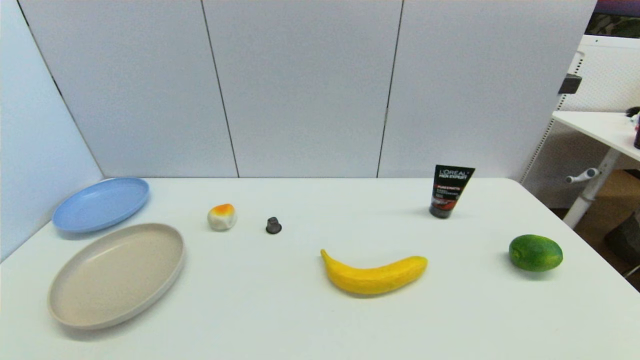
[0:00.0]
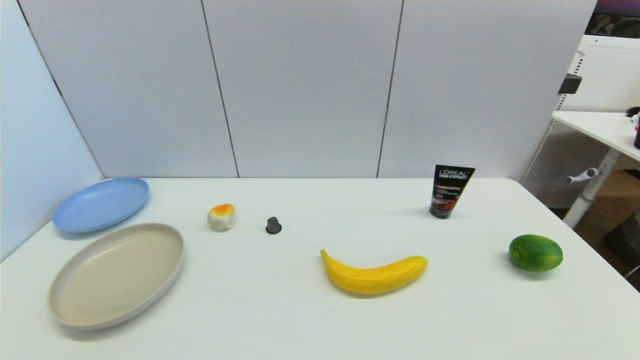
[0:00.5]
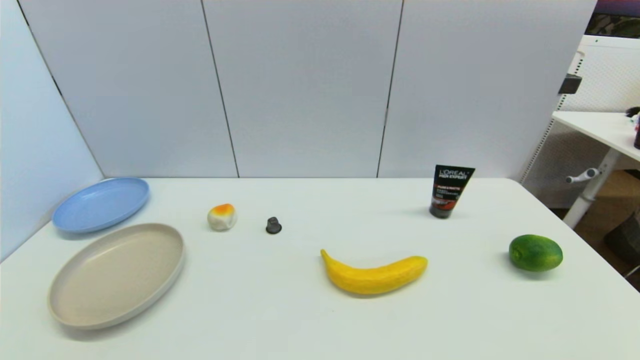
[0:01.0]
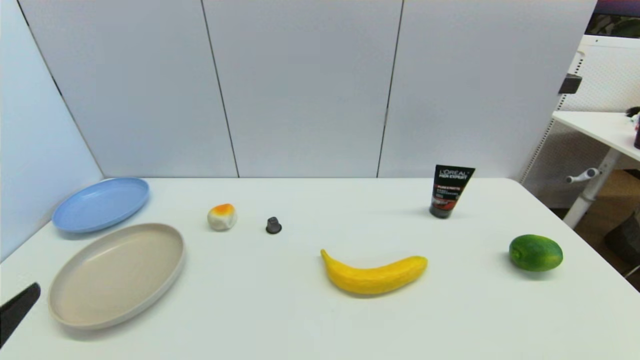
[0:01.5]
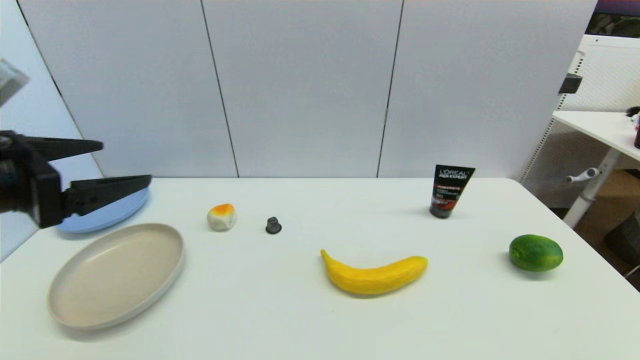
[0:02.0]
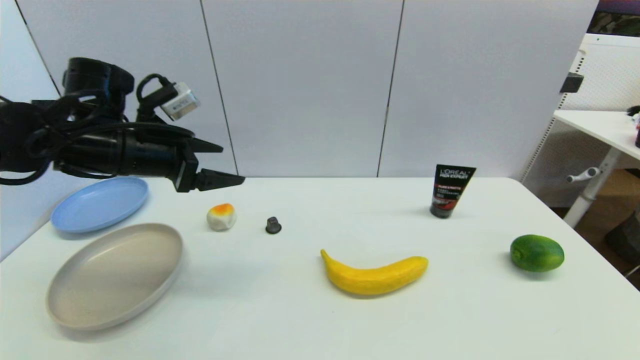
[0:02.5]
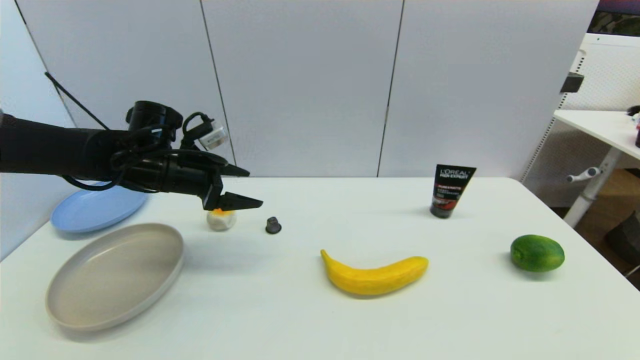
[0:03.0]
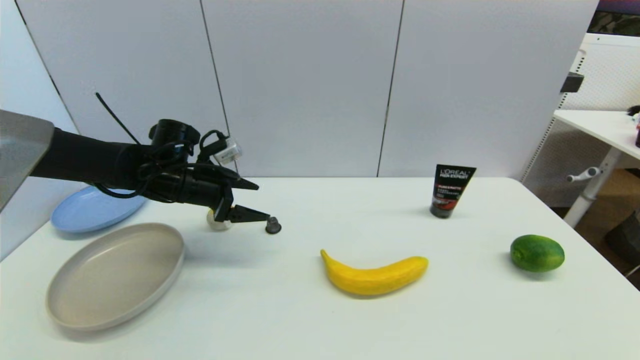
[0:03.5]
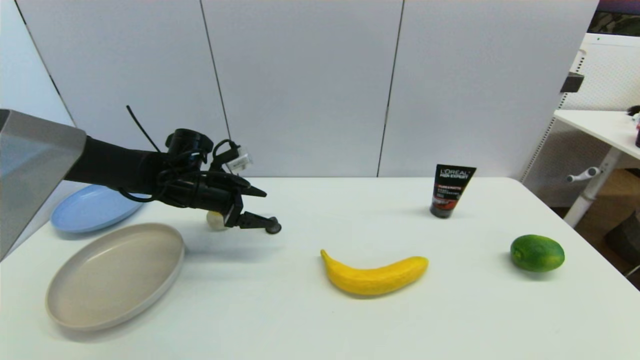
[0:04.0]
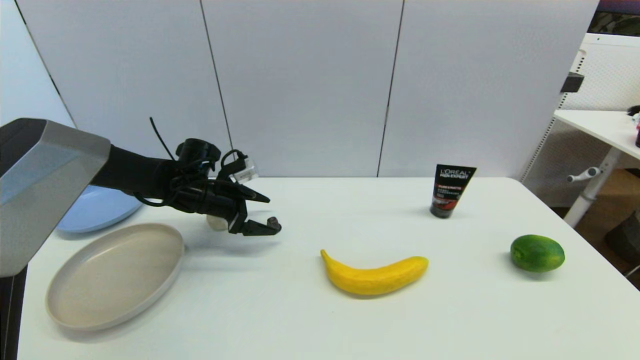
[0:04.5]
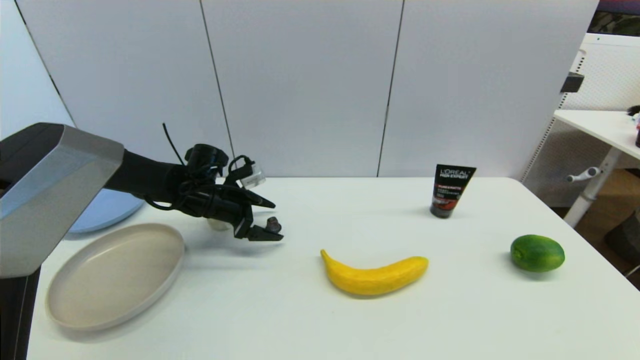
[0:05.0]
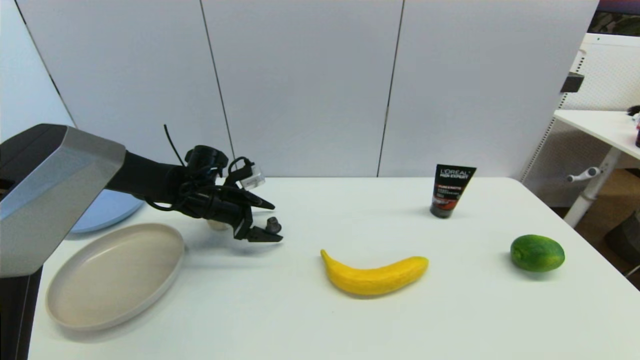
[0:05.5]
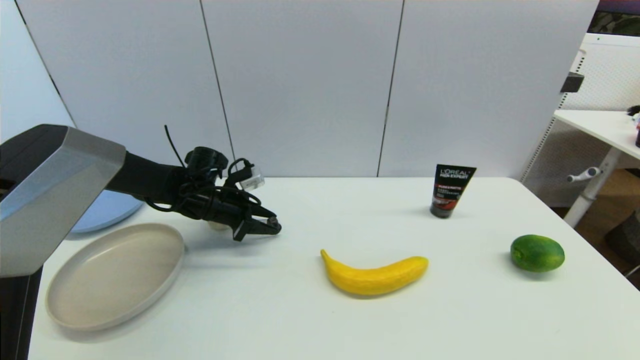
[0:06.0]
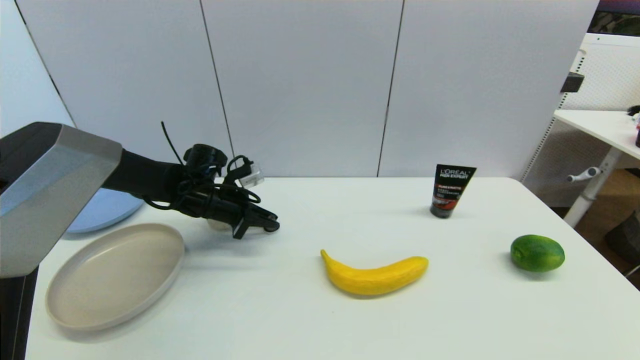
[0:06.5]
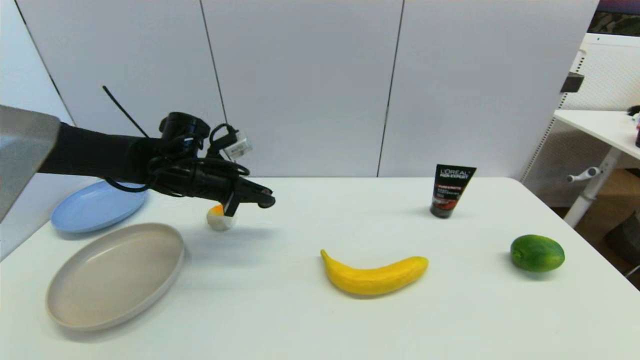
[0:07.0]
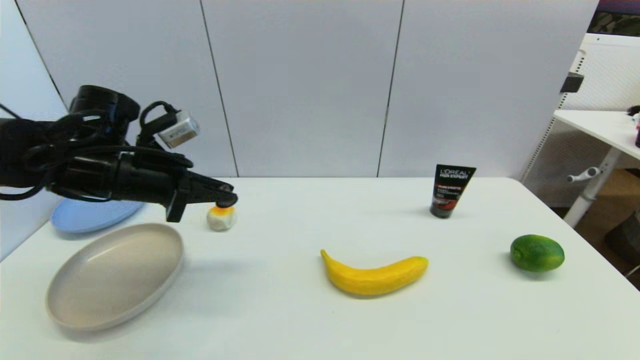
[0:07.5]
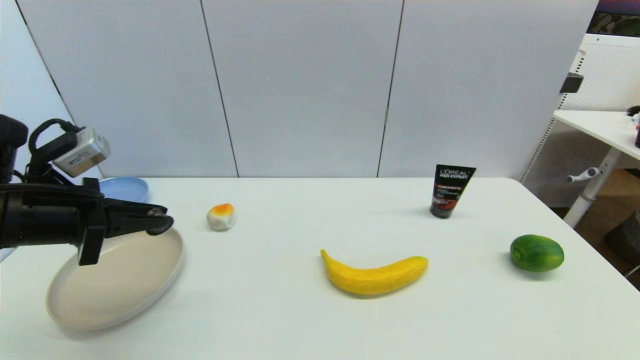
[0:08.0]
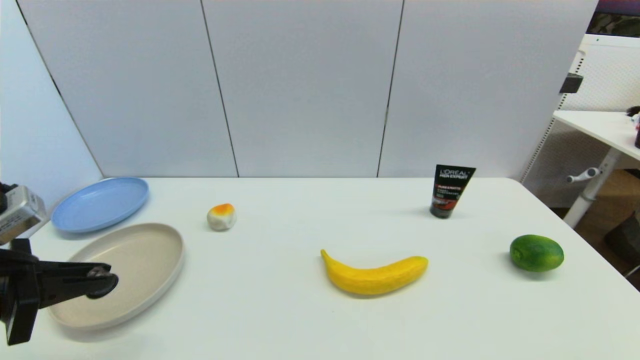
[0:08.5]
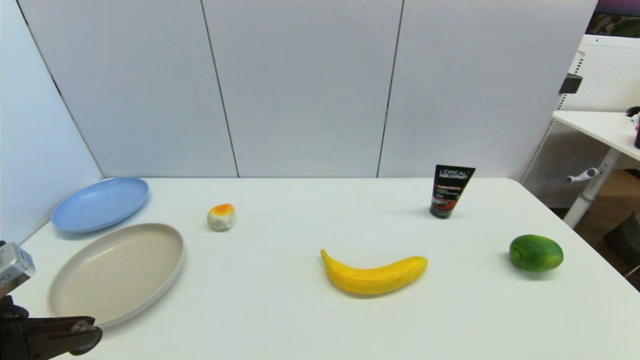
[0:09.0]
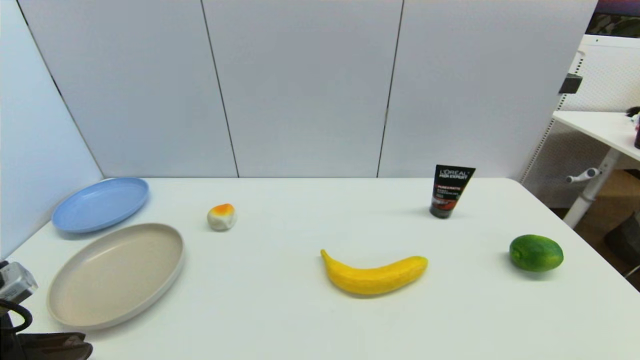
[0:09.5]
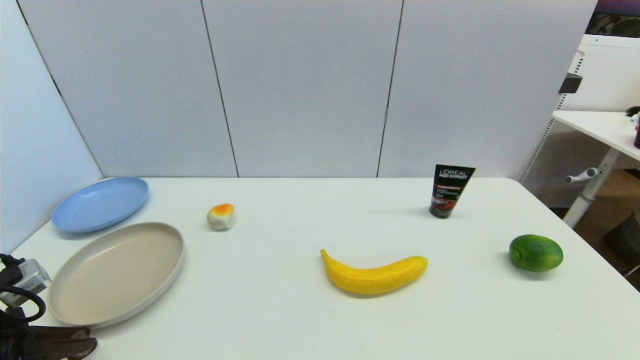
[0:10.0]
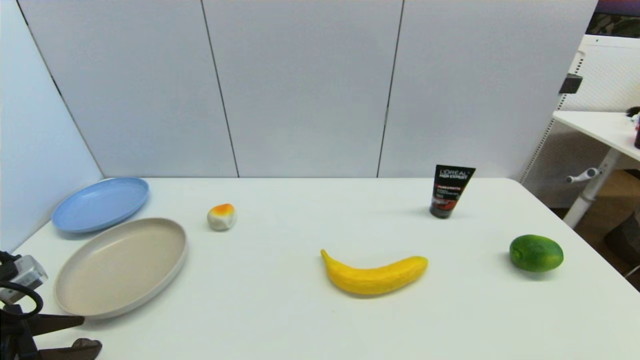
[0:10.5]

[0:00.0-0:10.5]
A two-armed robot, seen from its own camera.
Step, 0:01.5 to 0:06.0: Grasp the coffee capsule with left gripper.
Step, 0:06.5 to 0:10.0: Place the coffee capsule on the table with left gripper.
0:00.0 to 0:02.0: The left gripper travels upward and forward by roughly 30 cm.
0:02.0 to 0:04.0: The left gripper heads forward and downward, covering roughly 25 cm.
0:04.0 to 0:06.5: The left gripper closes.
0:06.5 to 0:08.5: The left gripper shifts about 30 cm backward and to the left.
0:08.5 to 0:10.5: The left gripper goes approximately 5 cm downward, and opens its fingers.

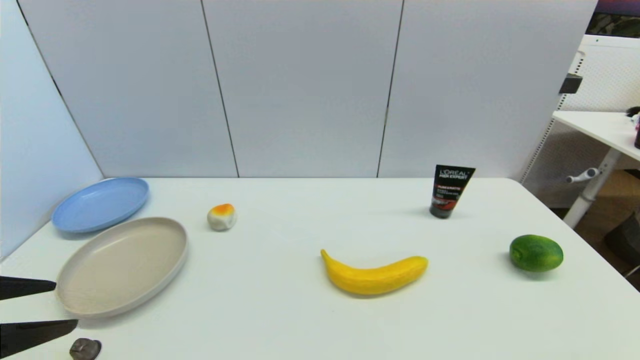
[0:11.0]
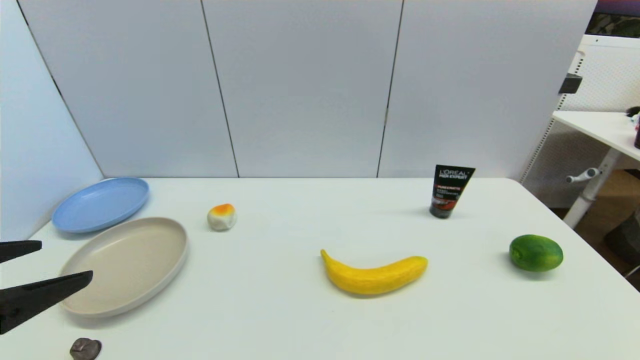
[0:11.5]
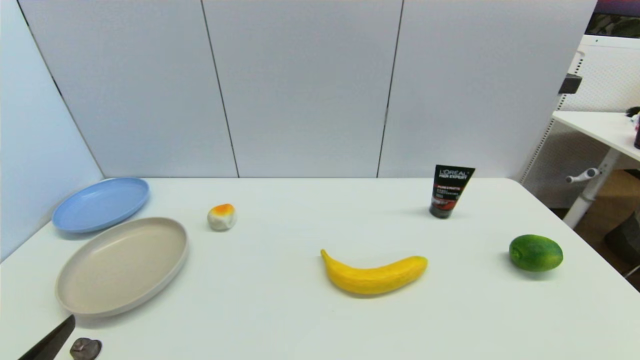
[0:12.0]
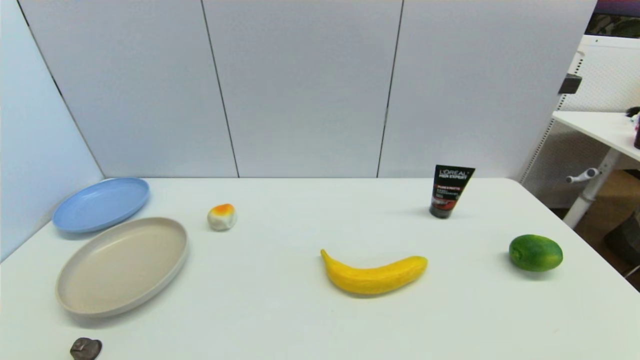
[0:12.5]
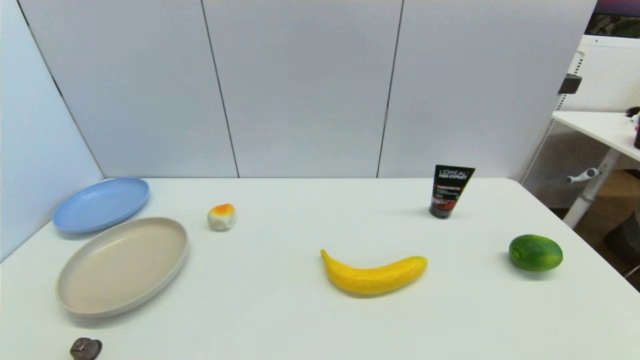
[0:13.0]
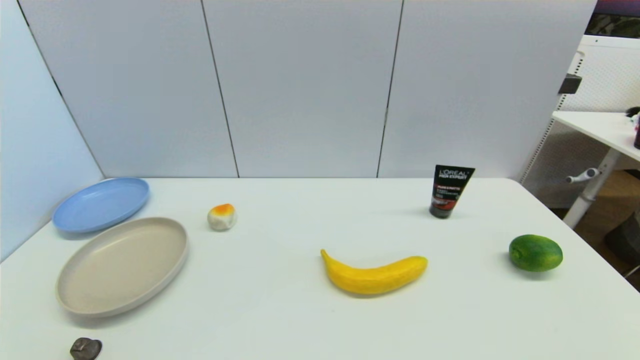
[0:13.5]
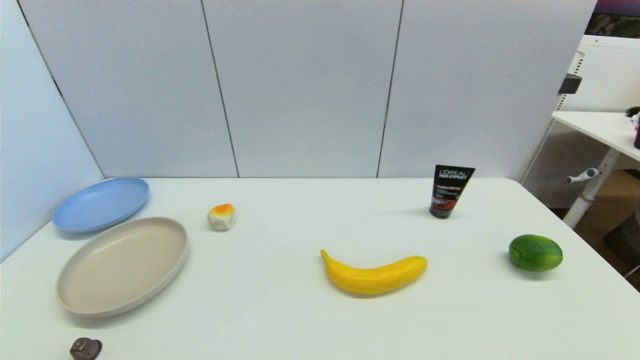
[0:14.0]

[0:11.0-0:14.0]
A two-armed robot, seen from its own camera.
0:11.0 to 0:12.5: The left gripper is displaced downward and backward by approximately 15 cm.
